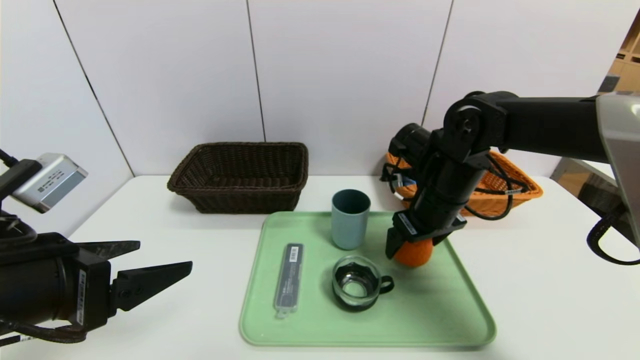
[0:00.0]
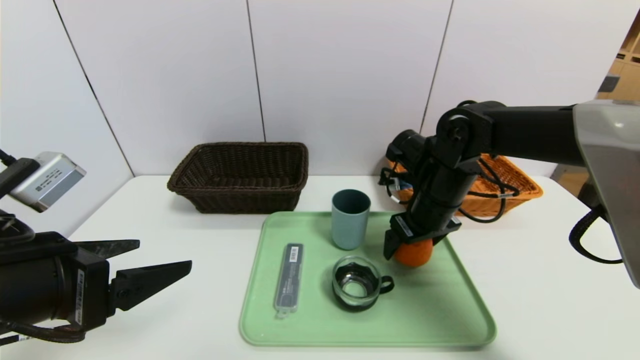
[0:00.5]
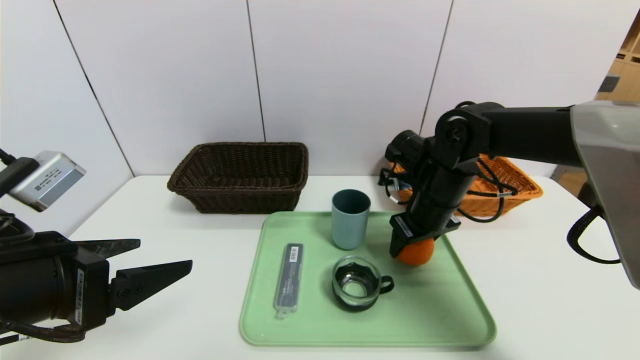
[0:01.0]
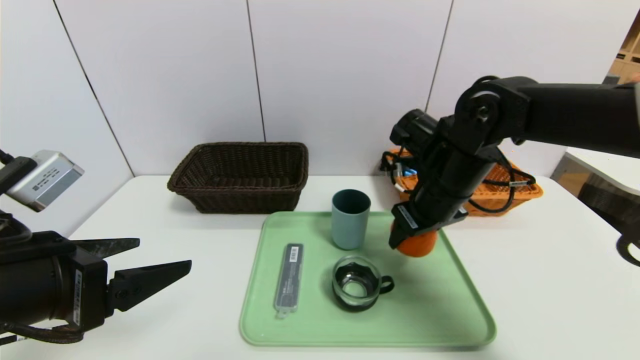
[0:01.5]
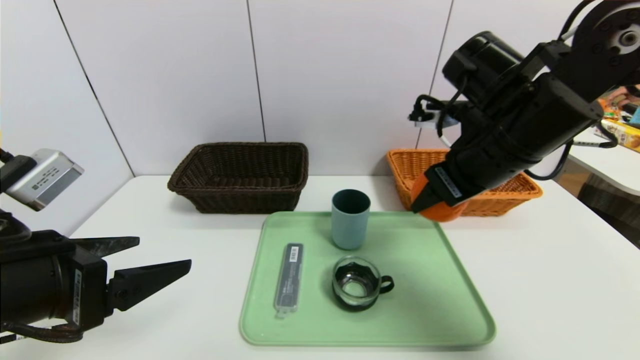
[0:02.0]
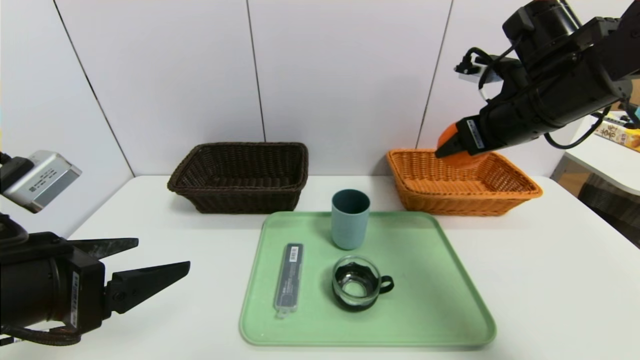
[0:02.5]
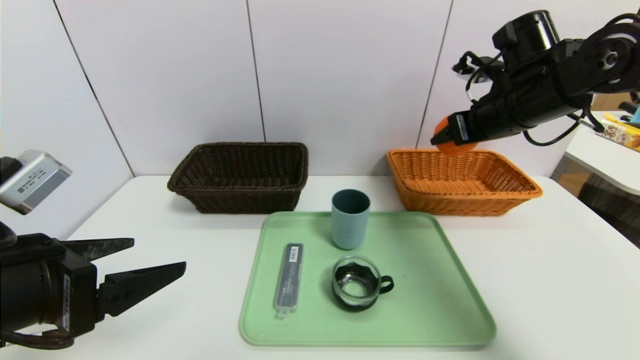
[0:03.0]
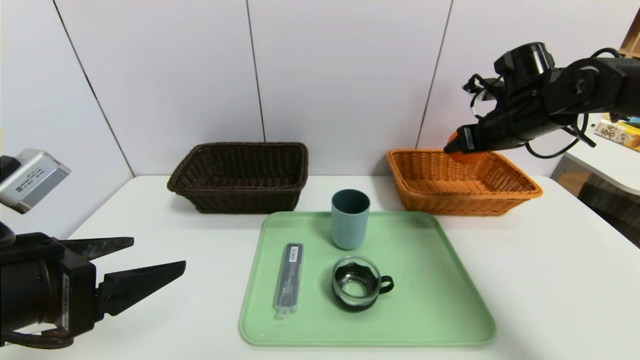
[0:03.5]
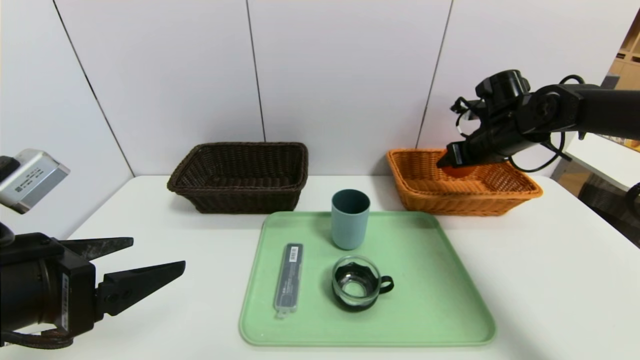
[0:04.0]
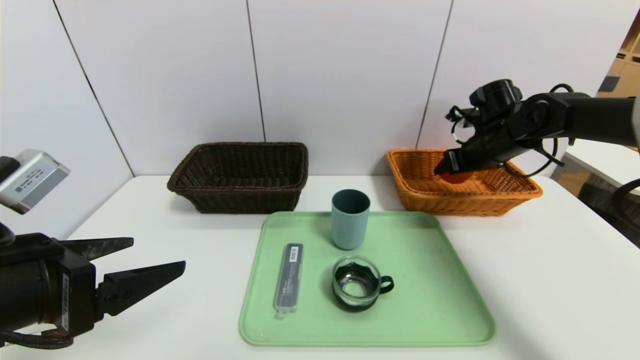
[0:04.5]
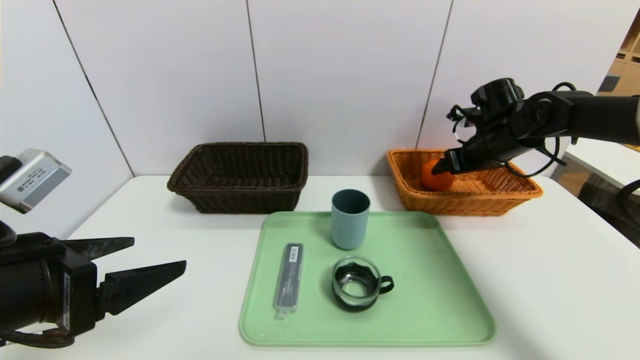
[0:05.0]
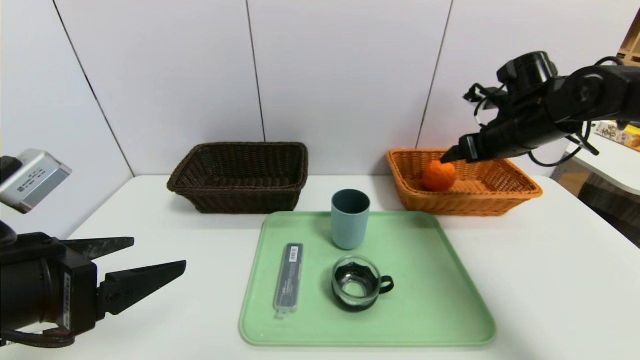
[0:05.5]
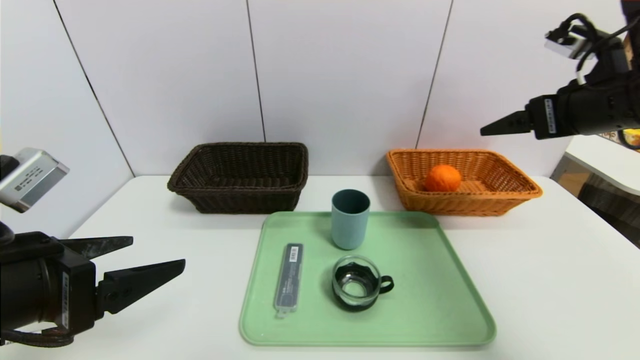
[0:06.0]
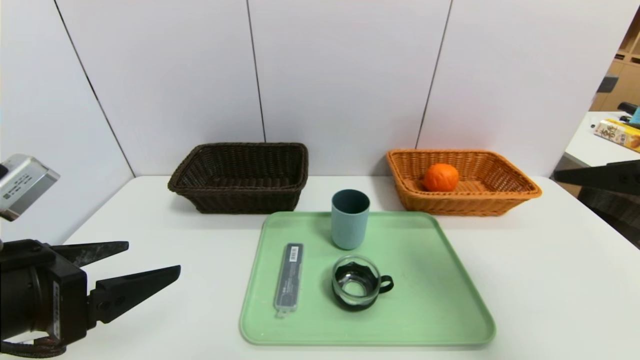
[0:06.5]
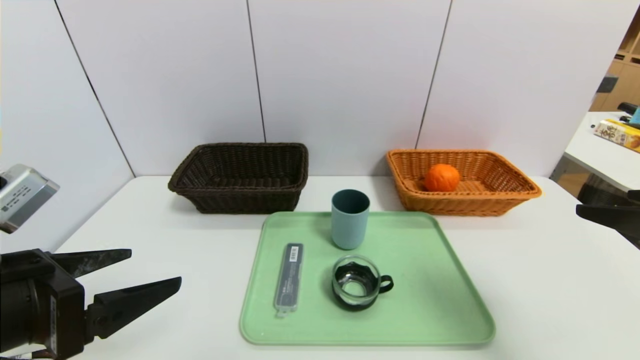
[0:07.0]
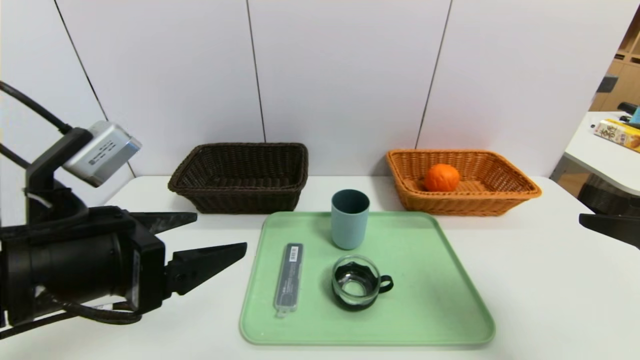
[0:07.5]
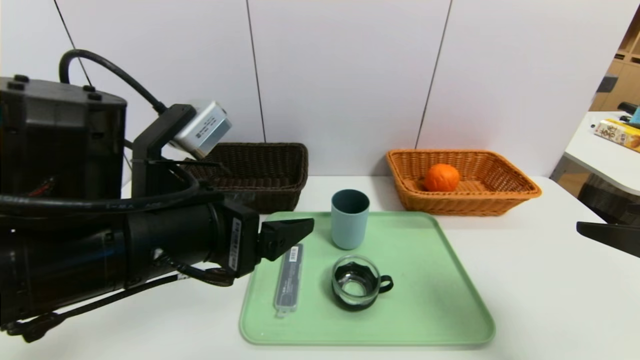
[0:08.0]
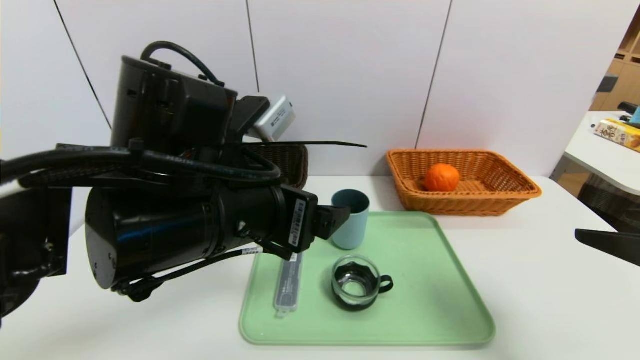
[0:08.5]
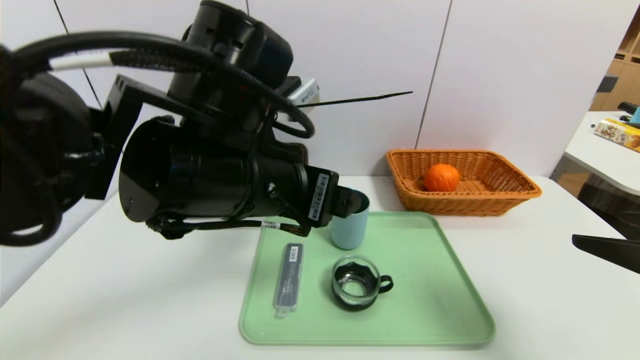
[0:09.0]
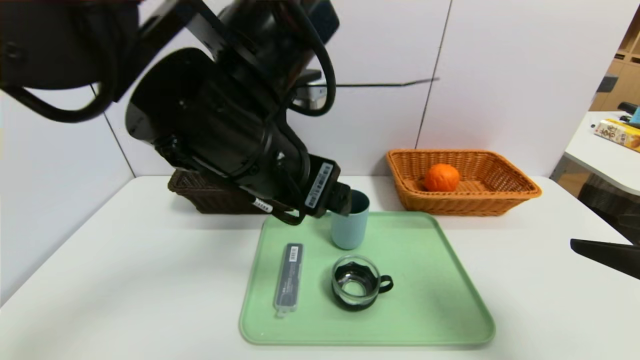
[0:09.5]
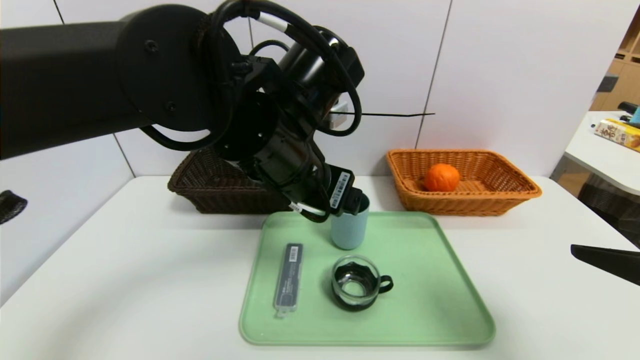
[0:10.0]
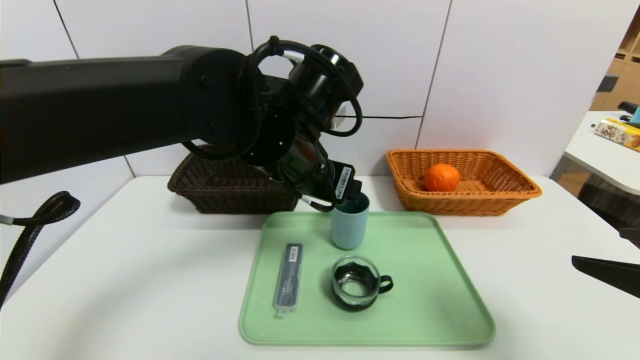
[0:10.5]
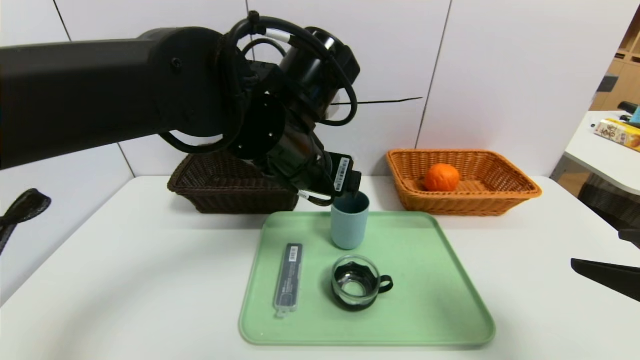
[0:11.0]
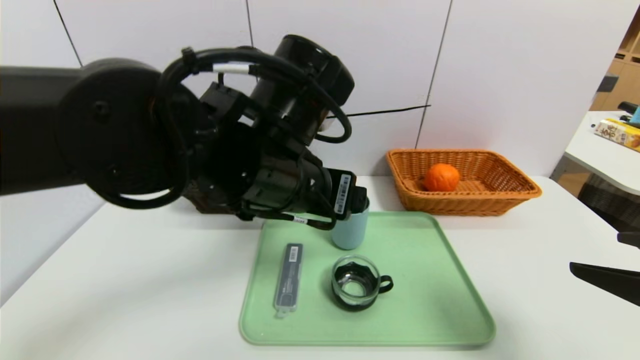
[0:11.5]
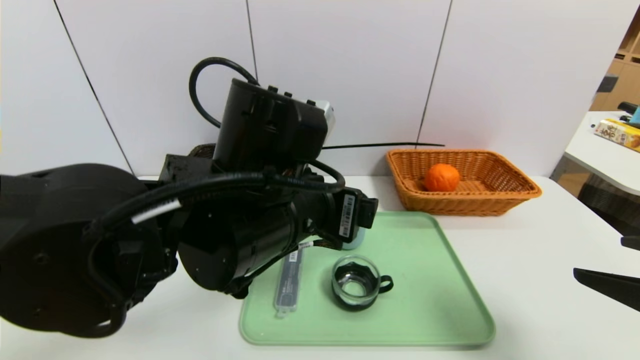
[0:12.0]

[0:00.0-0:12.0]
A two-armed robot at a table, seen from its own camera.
Task of the whole recording: place the food in the right basket with the right gripper, and place the non food items in the left basket with the left gripper.
Step, 0:00.0 to 0:05.0: Grasp the orange and put it in the right basket.
0:00.0 to 0:02.0: The right gripper moves upward and backward, roughly 10 cm, and closes its fingers.
0:02.0 to 0:04.0: The right gripper moves forward, to the right and downward, approximately 20 cm.
0:04.0 to 0:06.0: The right gripper moves backward and upward, approximately 20 cm, and opens.
0:06.0 to 0:08.0: The right gripper moves backward, roughly 15 cm. Meanwhile the left gripper is displaced to the right by about 10 cm.
0:08.0 to 0:10.0: The left gripper heads to the right and forward, covering some 15 cm.
0:10.0 to 0:12.0: The left gripper shifts roughly 5 cm backward.

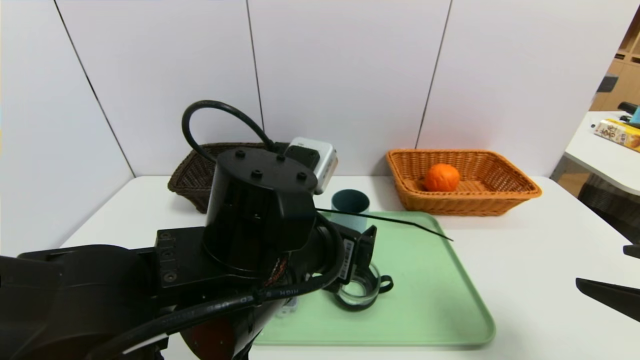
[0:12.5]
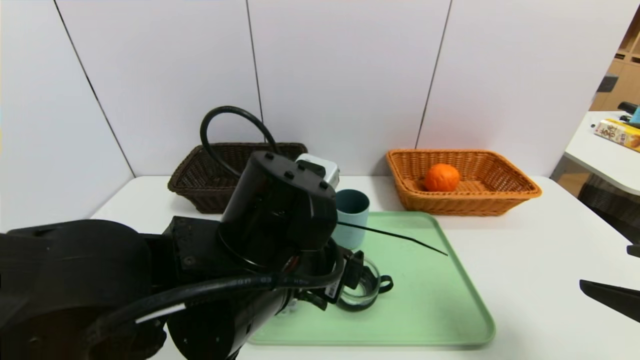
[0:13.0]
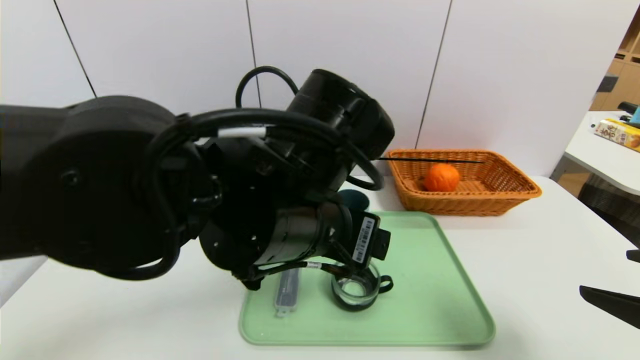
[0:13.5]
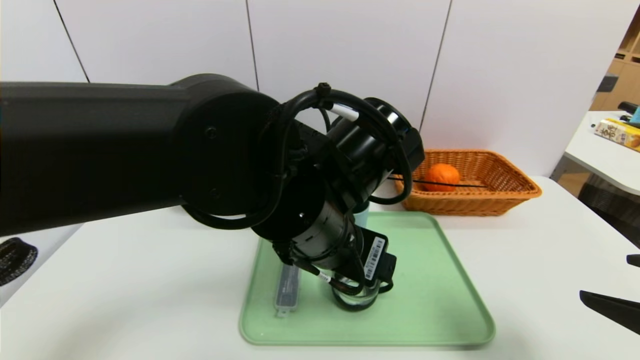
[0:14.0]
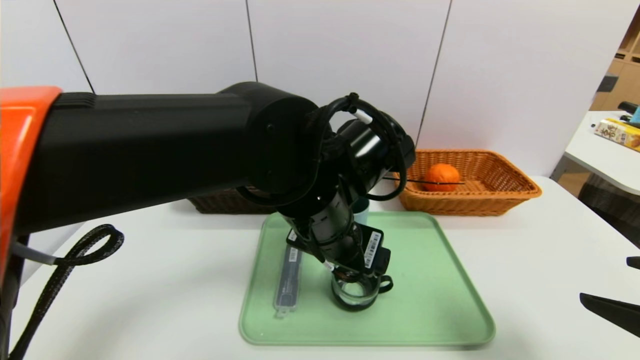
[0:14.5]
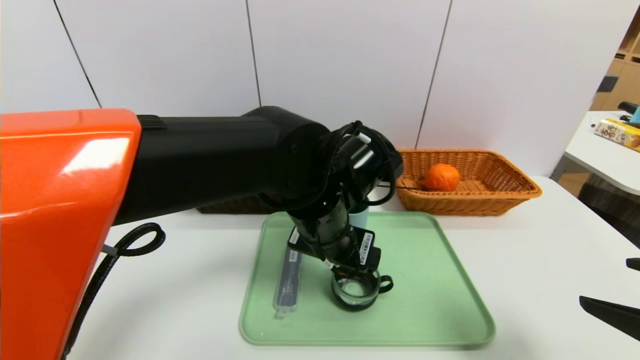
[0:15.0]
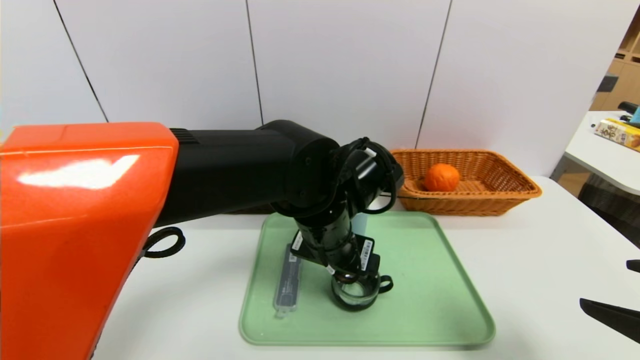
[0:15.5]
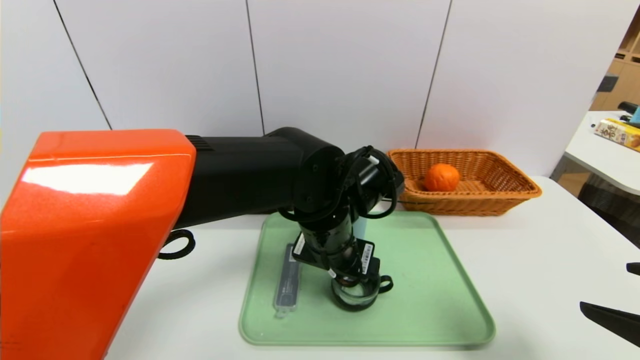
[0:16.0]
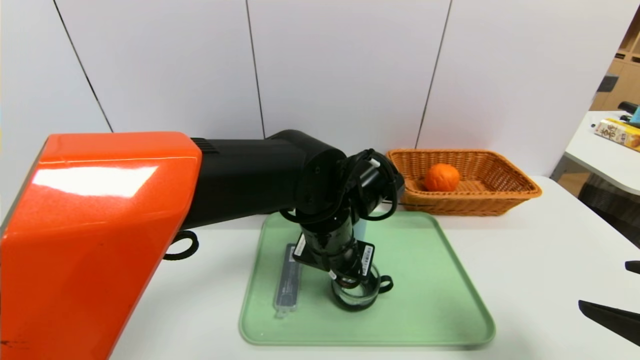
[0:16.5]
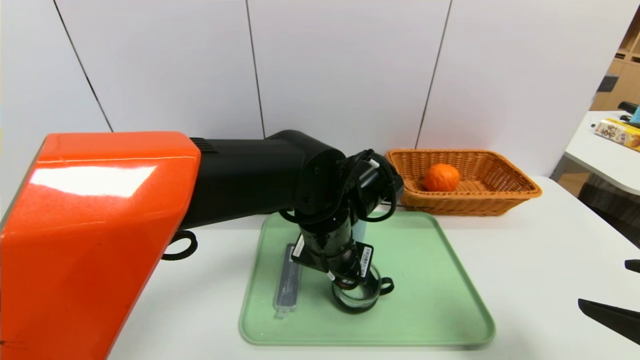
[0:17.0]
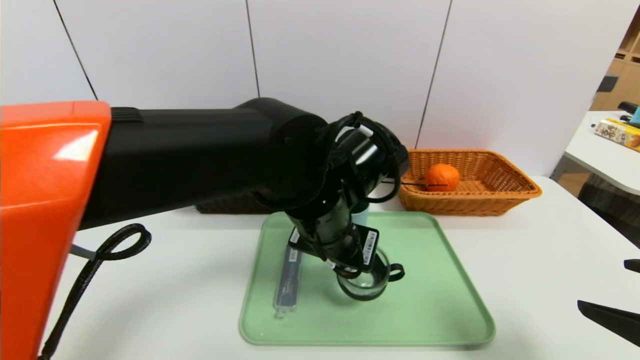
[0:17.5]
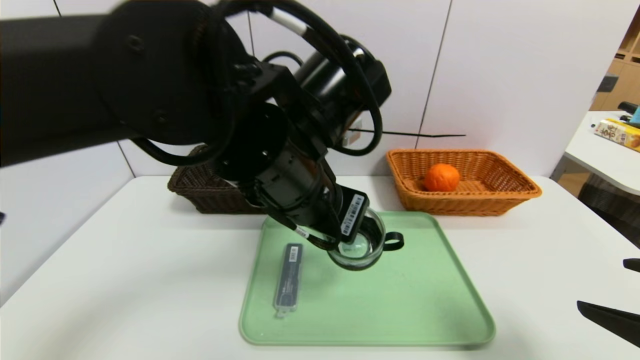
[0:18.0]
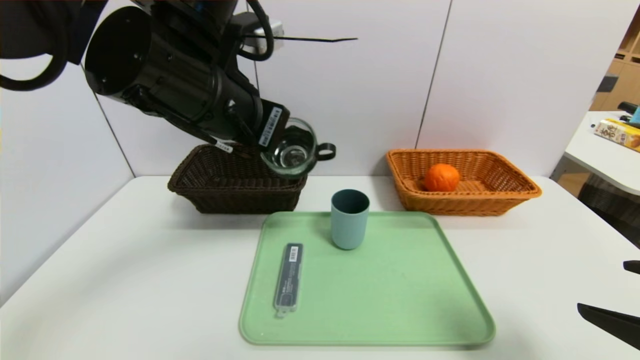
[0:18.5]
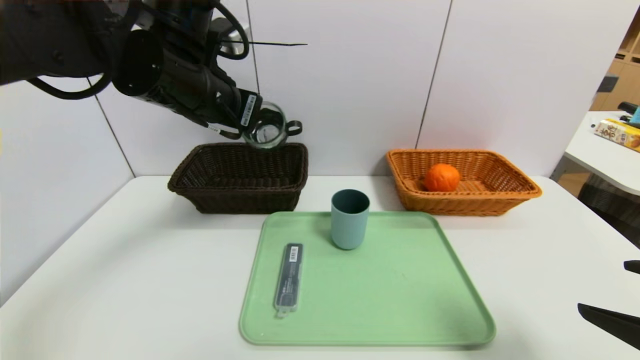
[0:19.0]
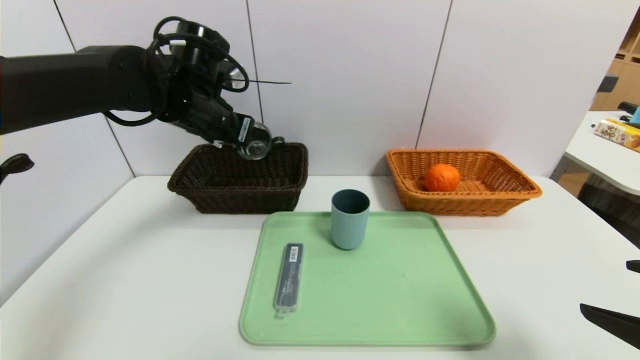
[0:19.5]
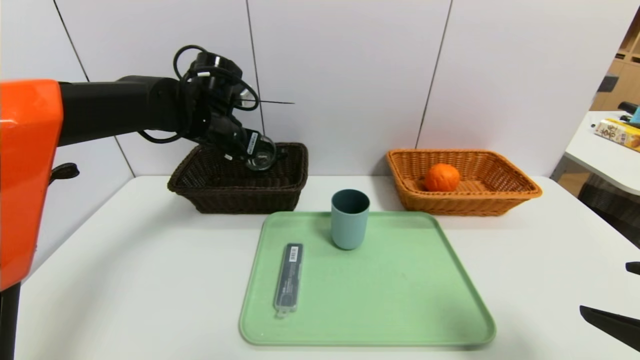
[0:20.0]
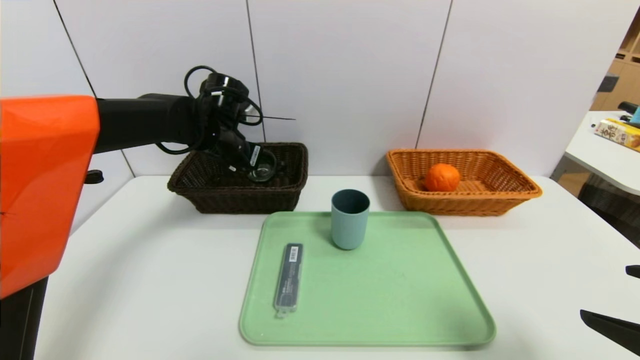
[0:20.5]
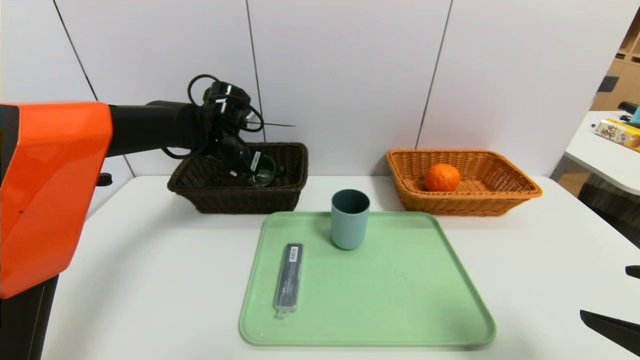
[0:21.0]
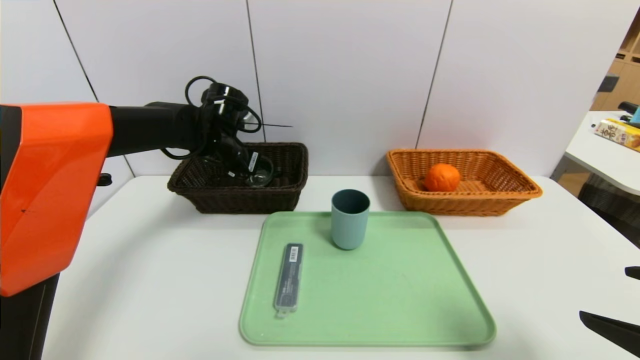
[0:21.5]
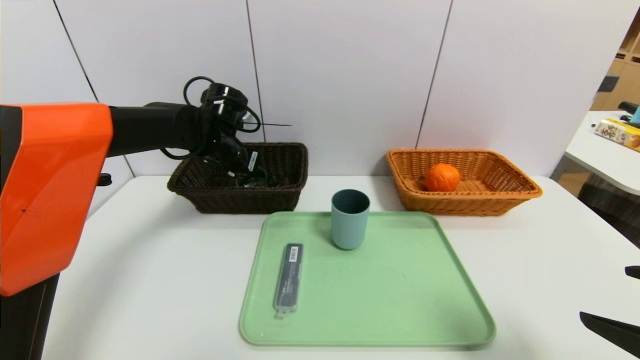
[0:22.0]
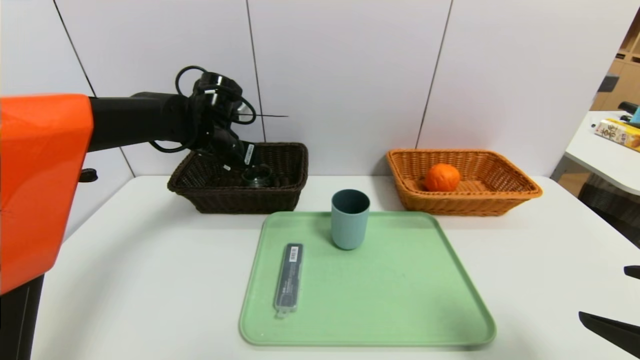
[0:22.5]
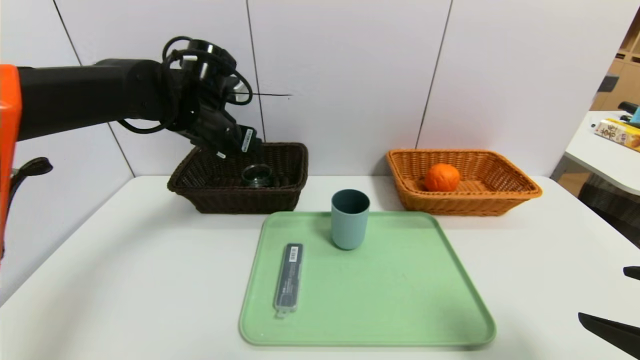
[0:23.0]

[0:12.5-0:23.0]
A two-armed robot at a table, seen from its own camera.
Task of the whole recording: place the food in the right basket with the right gripper, and place the non food items in the left basket with the left gripper.
Step, 0:12.5 to 0:22.0: Grasp the black glass cup and put it in the left basket.
0:12.5 to 0:14.5: The left gripper moves forward, some 5 cm.
0:14.5 to 0:16.5: The left gripper goes some 5 cm downward, and closes up.
0:16.5 to 0:19.0: The left gripper travels to the left and upward by roughly 20 cm.
0:19.0 to 0:21.0: The left gripper is displaced downward and forward by some 15 cm.
0:21.0 to 0:23.0: The left gripper is displaced upward by about 5 cm, and opens up.
